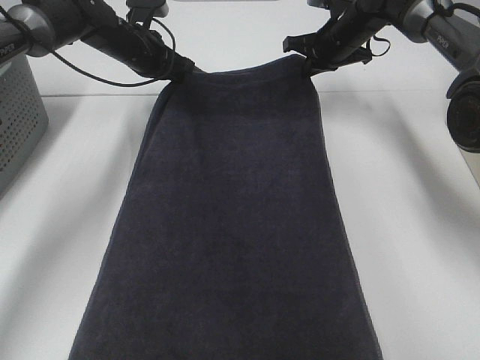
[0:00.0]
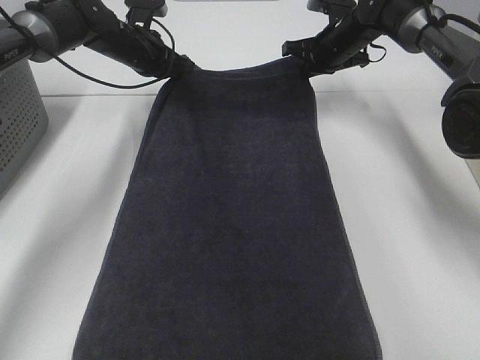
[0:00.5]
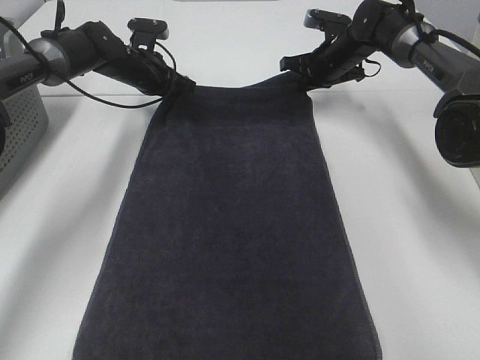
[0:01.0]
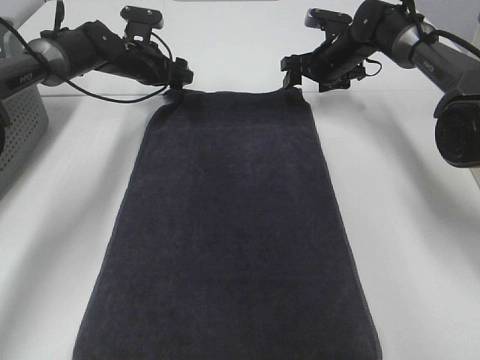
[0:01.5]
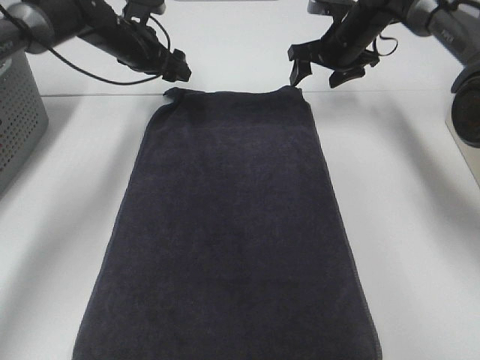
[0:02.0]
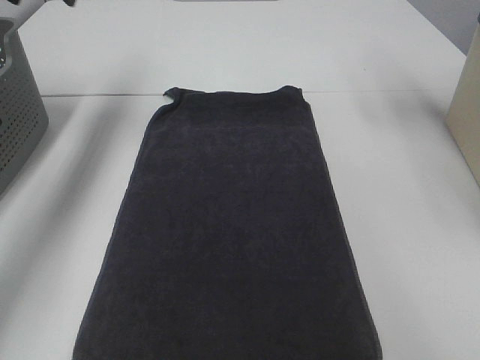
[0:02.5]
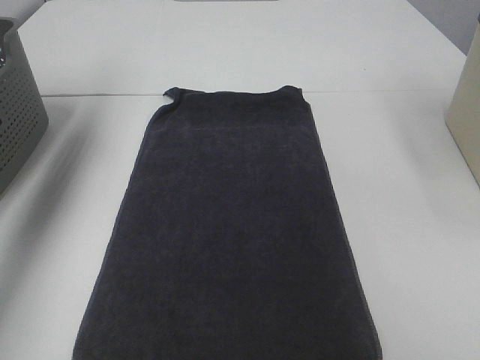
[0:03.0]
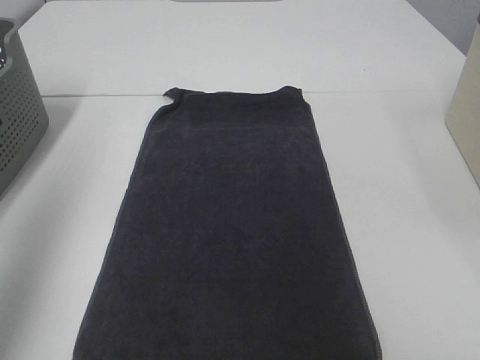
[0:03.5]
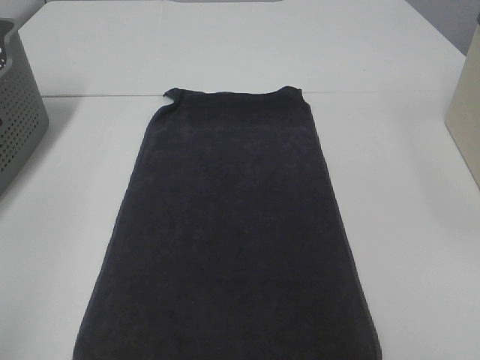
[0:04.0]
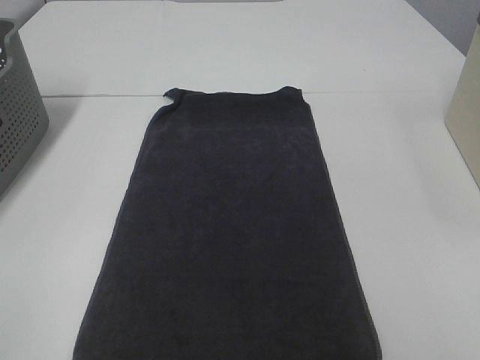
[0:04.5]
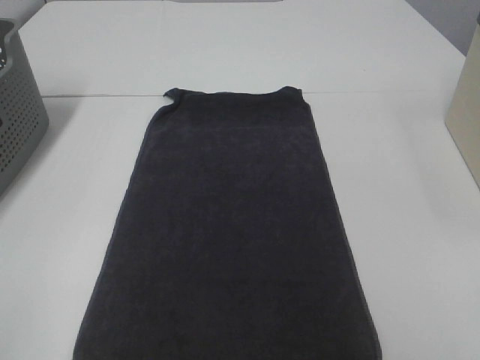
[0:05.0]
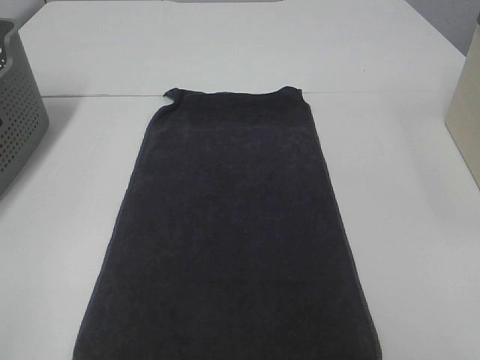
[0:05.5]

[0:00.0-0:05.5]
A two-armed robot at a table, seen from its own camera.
Task of the whole recording: Remove the towel and place it.
0:00.0 to 0:02.0: The left gripper opens; the right gripper opens up.
0:02.0 to 0:03.5: Both grippers move backward and upward, about 50 cm.
0:03.5 to 0:05.5: The left gripper travels backward and downward by roughly 20 cm.

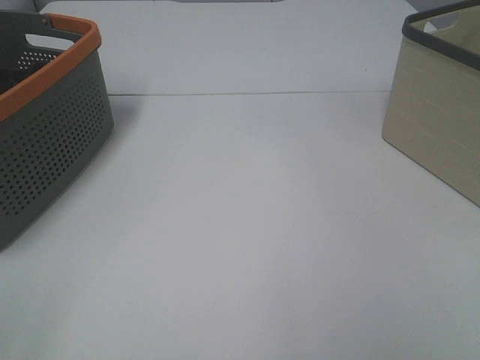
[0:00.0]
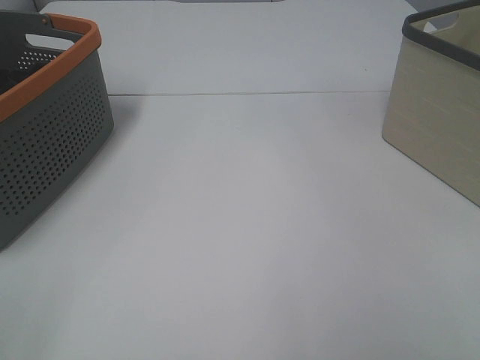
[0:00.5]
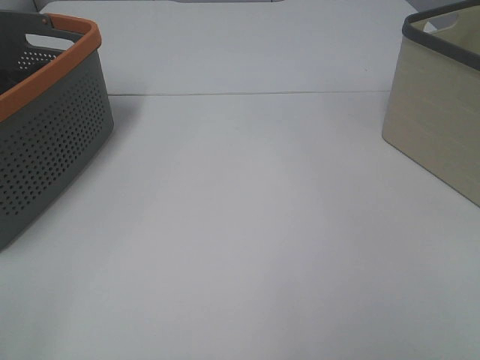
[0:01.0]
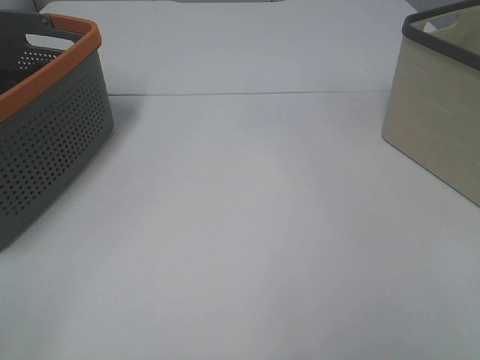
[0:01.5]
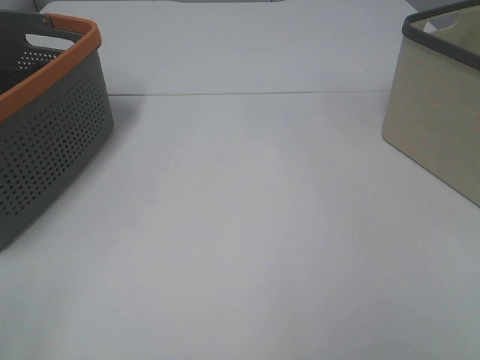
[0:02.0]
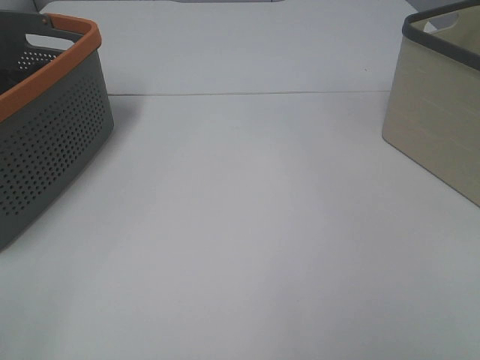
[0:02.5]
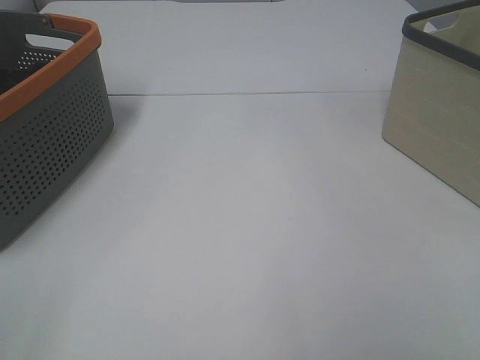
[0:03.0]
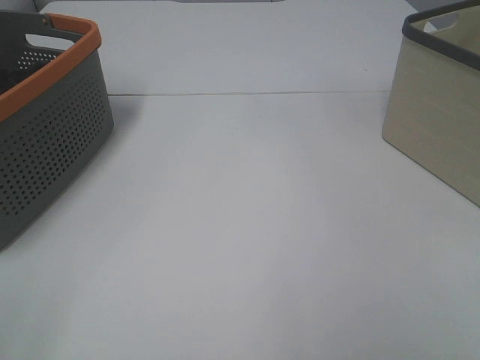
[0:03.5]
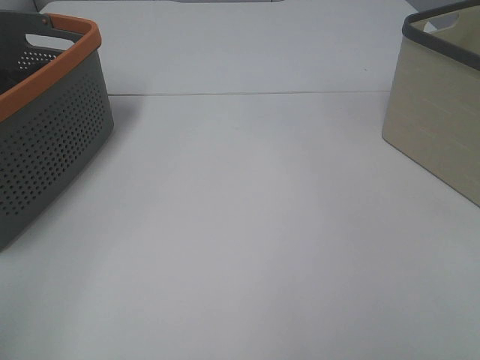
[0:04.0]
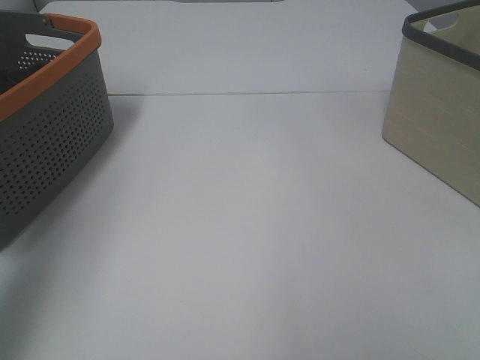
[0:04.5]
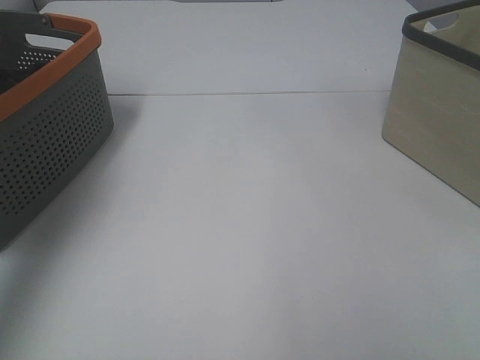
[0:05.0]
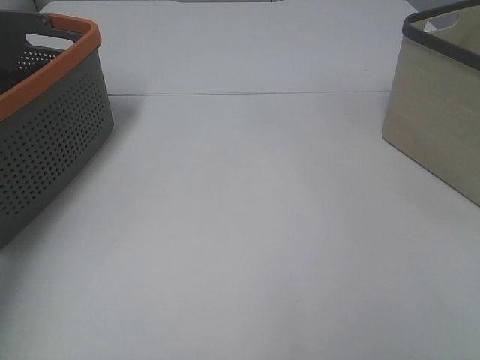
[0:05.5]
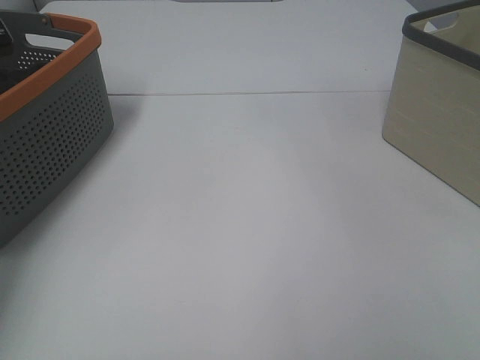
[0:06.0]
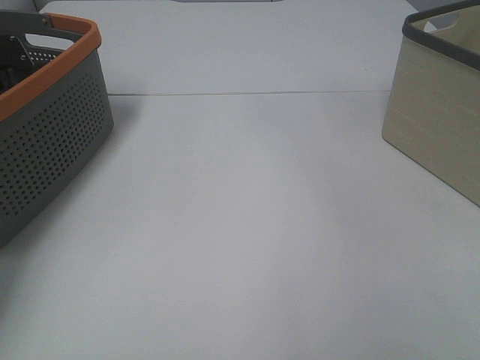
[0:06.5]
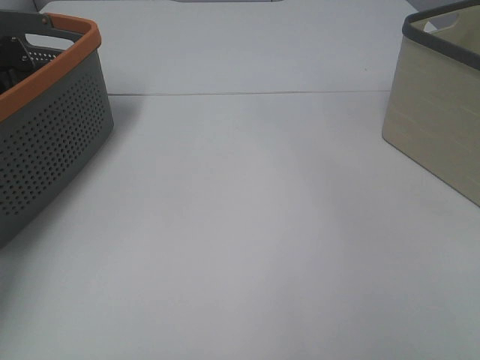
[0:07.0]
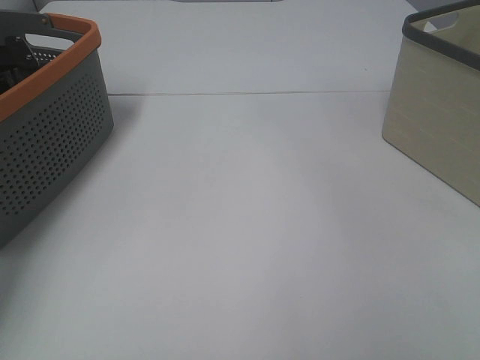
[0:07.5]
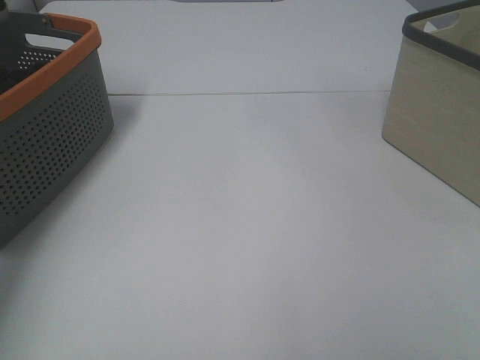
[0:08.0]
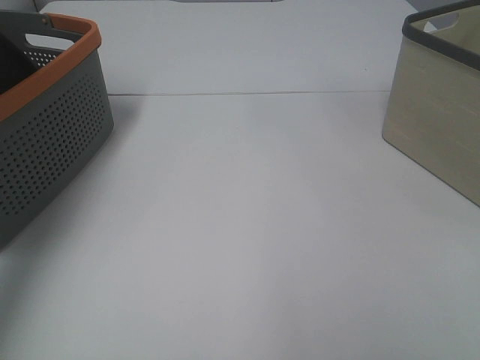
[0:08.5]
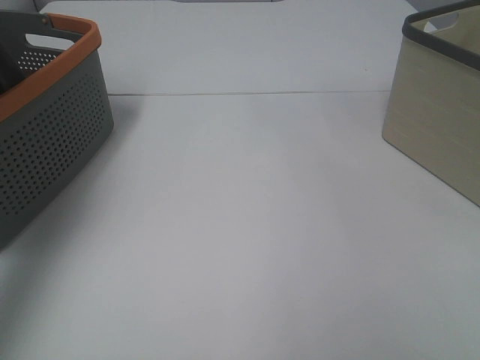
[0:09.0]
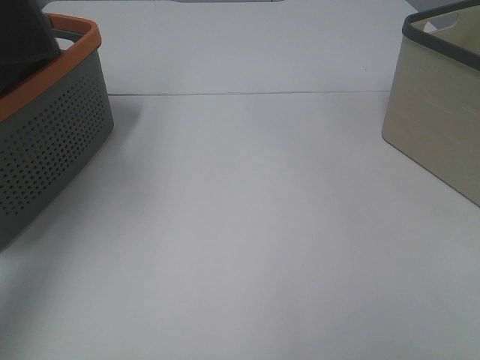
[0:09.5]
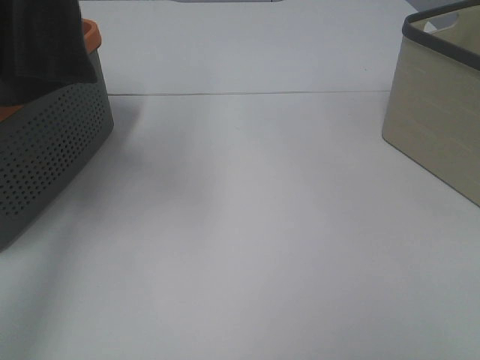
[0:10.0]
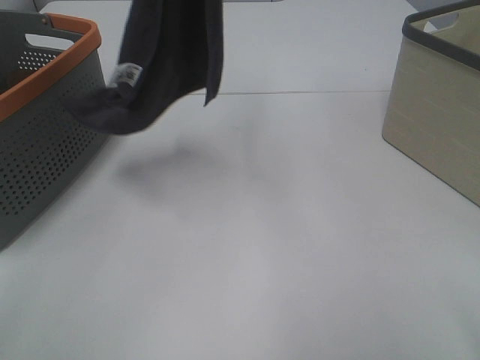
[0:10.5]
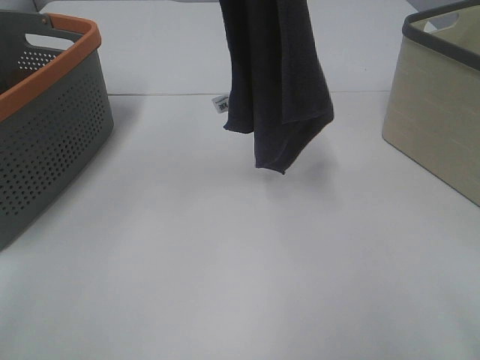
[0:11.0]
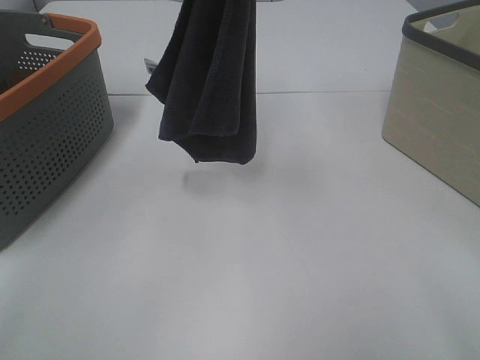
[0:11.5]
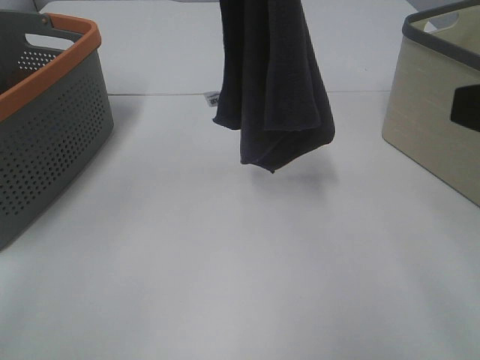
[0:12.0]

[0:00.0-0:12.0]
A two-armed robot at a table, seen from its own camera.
Task of the whole recording: Remove the towel and place it.
0:00.0 to 0:02.0: Both grippers stay about where they are.
0:04.0 to 0:06.0: The left gripper is displaced forward by some 40 cm.
0:08.0 to 0:10.0: The left gripper moves upward, backward and to the right, roughly 35 cm.
0:10.0 to 0:12.0: The left gripper shifts approximately 15 cm to the right and downward. Meanwhile the right gripper heads forward, covering roughly 10 cm.

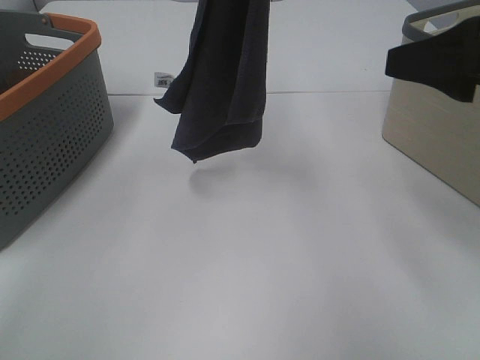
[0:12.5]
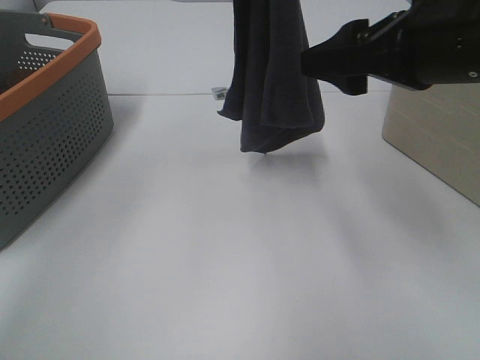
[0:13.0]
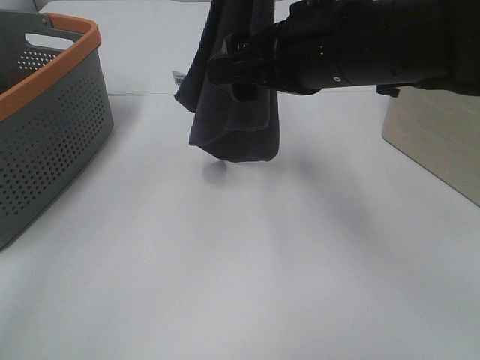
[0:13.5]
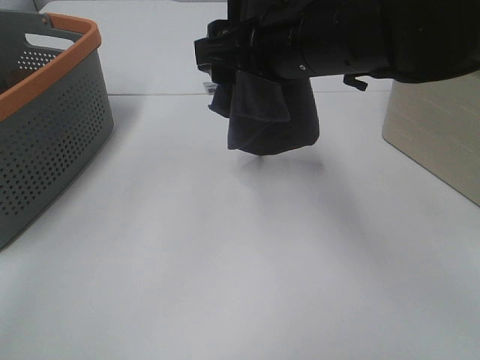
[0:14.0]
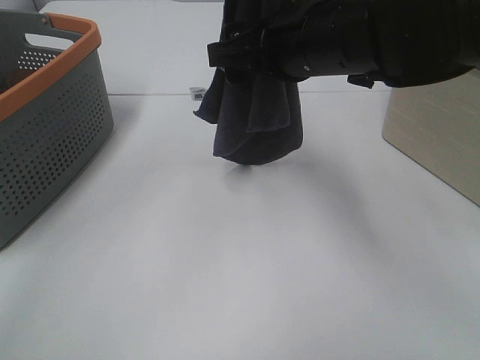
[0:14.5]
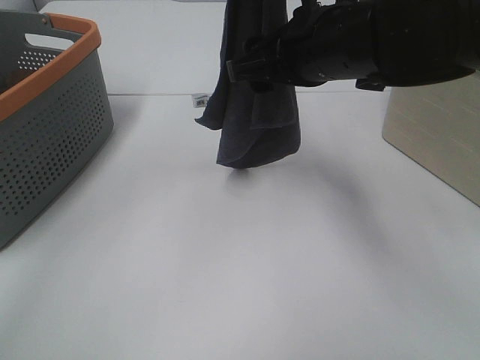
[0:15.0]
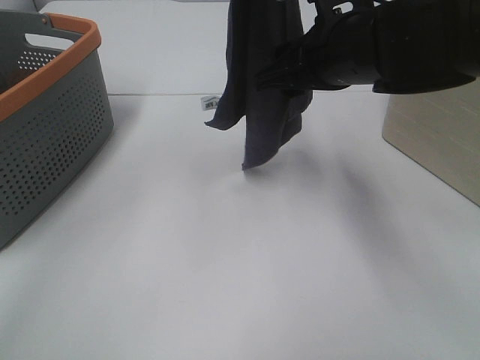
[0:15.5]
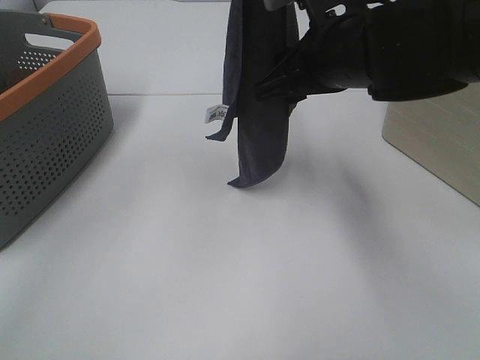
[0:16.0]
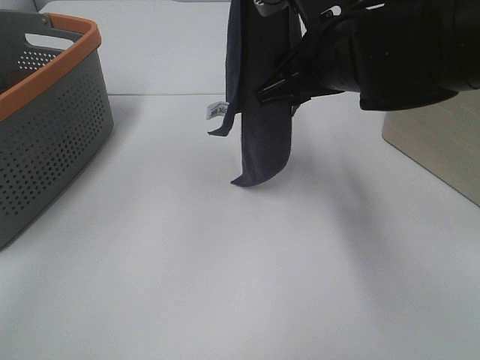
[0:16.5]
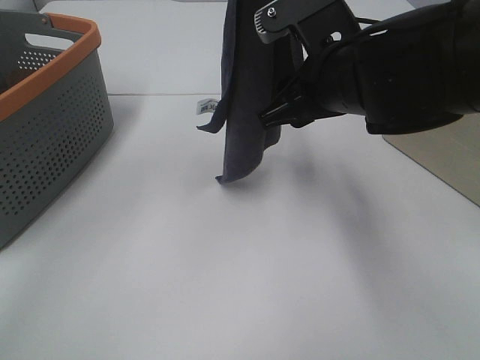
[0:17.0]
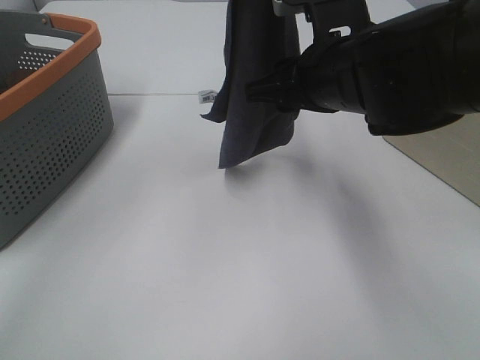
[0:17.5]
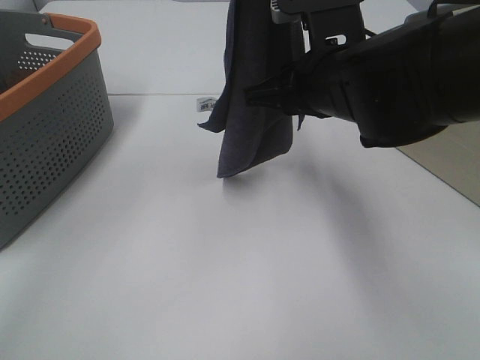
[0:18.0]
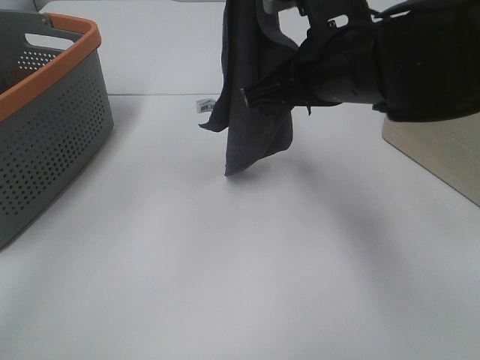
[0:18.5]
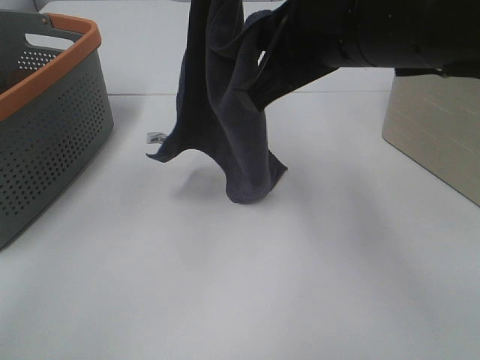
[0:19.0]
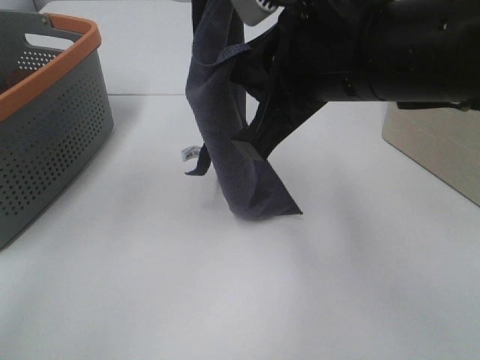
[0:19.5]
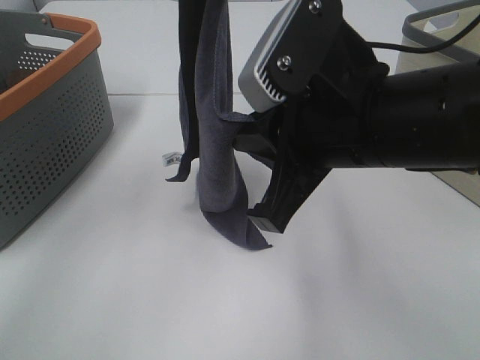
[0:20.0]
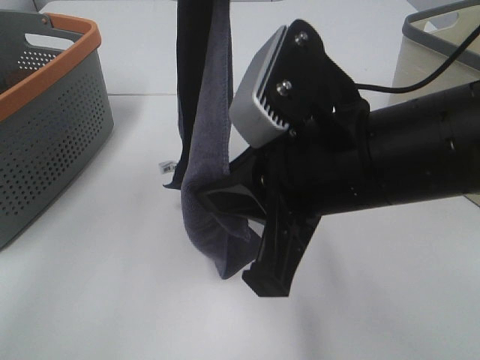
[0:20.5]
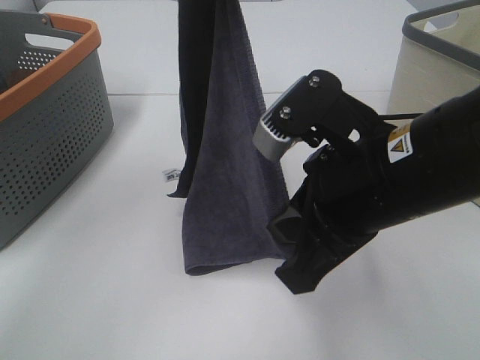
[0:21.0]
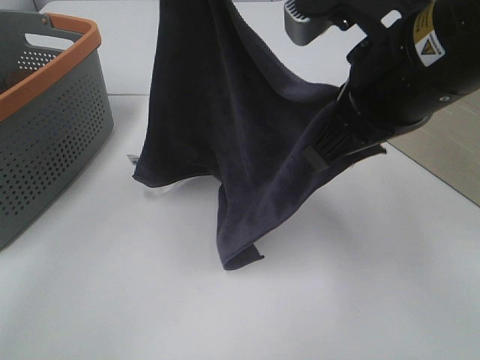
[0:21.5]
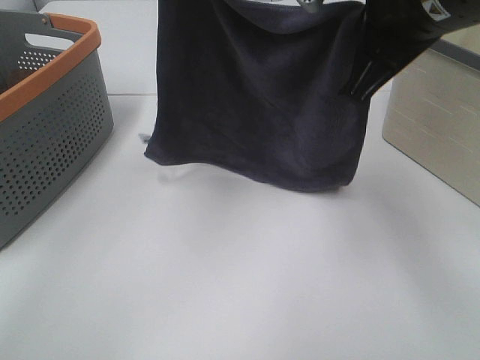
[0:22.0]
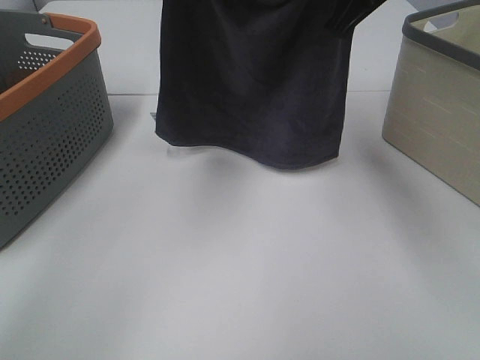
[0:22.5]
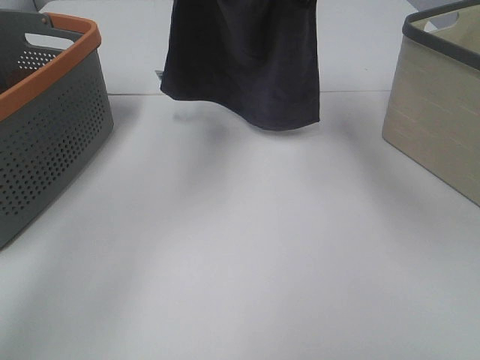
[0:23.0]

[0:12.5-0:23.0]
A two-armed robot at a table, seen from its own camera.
Task of the whole recording: Remove the towel and place it.
Step, 0:12.5 to 0:18.5: Right hand: grab a corner of the grey towel and straighten it.
Step, 0:19.0 to 0:21.5: Left hand: spread the grey towel flat on the table.
Step, 0:19.0 to 0:21.5: Right hand: spread the grey towel flat on the table.
0:12.5 to 0:14.5: The right gripper moves to the left and forward, approximately 20 cm.
0:16.5 to 0:19.0: The right gripper moves roughly 5 cm, and closes.
0:19.0 to 0:21.0: The right gripper goes about 10 cm downward and backward.
0:21.0 to 0:23.0: The right gripper shifts some 25 cm forward and upward; the left gripper moves forward, roughly 10 cm.
